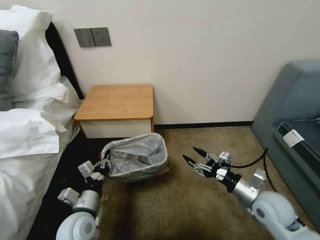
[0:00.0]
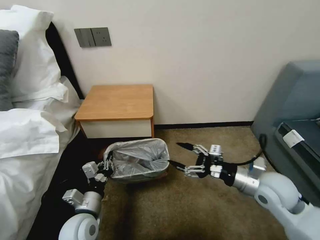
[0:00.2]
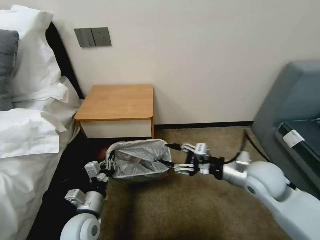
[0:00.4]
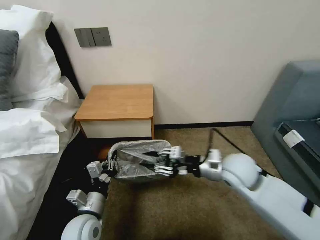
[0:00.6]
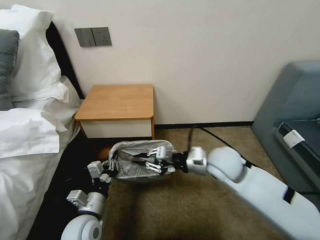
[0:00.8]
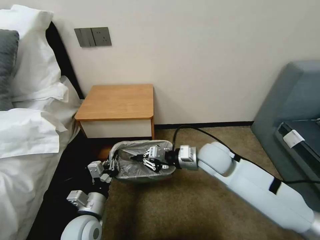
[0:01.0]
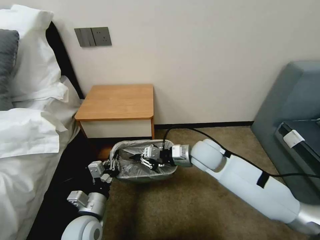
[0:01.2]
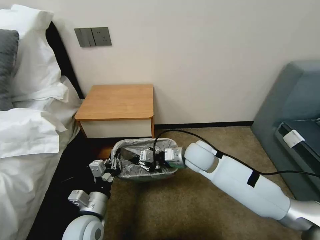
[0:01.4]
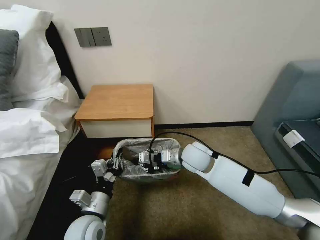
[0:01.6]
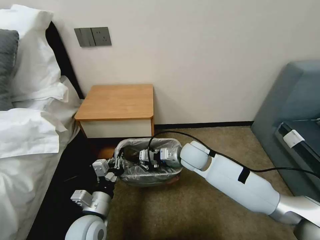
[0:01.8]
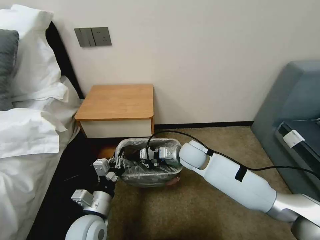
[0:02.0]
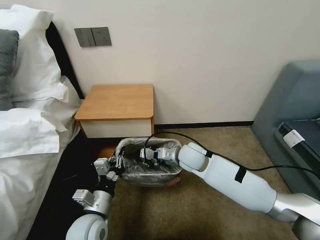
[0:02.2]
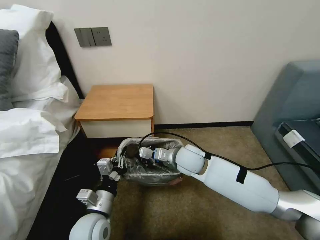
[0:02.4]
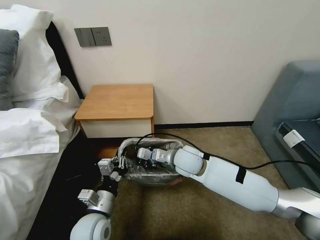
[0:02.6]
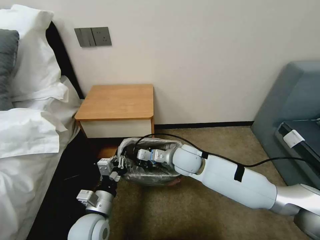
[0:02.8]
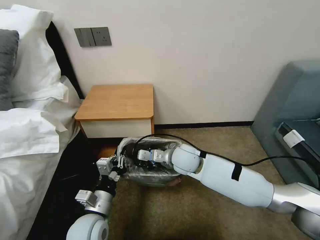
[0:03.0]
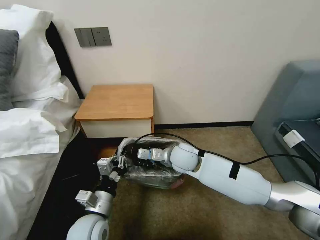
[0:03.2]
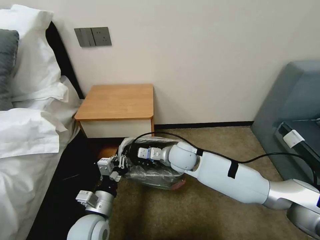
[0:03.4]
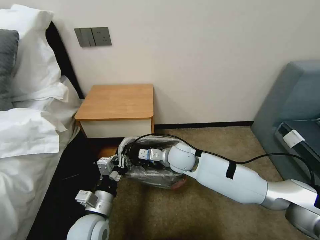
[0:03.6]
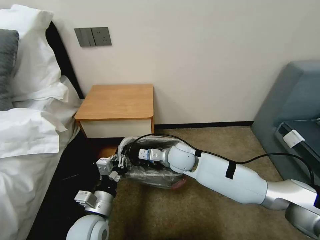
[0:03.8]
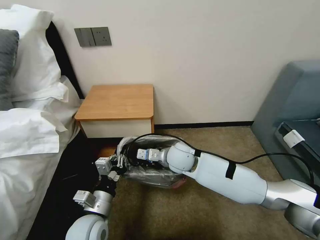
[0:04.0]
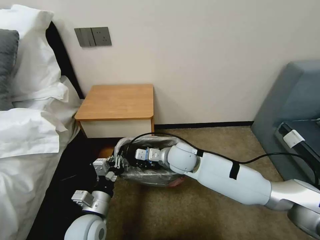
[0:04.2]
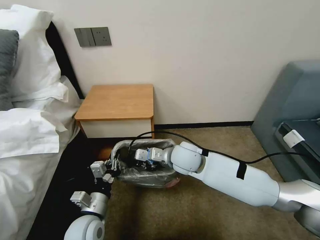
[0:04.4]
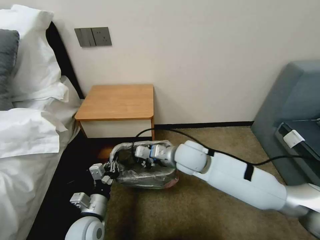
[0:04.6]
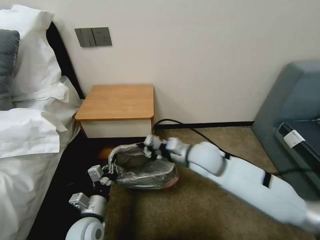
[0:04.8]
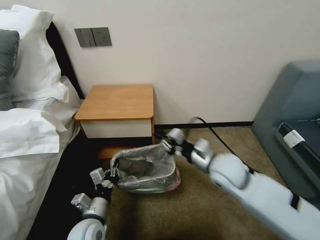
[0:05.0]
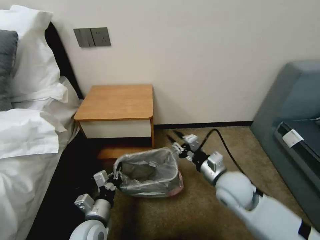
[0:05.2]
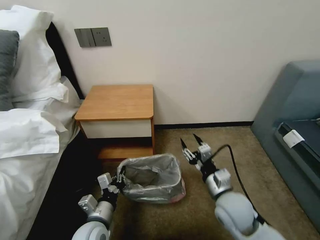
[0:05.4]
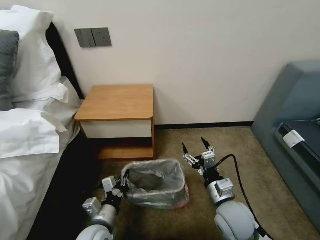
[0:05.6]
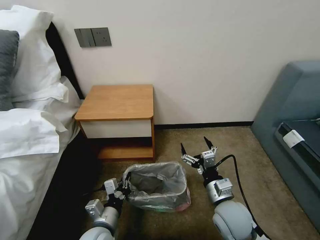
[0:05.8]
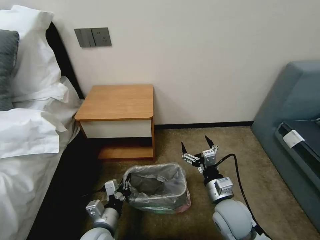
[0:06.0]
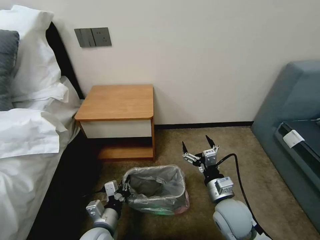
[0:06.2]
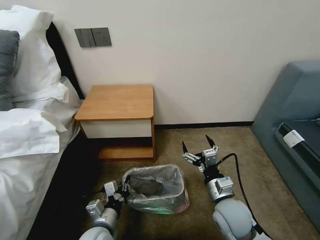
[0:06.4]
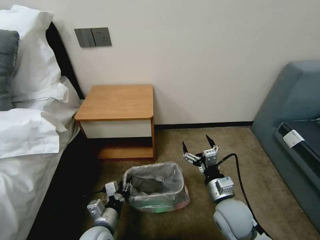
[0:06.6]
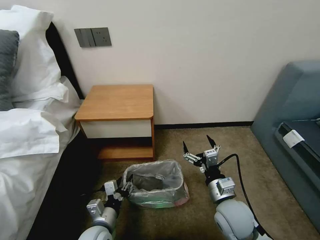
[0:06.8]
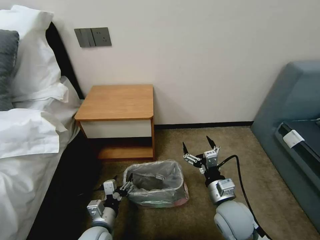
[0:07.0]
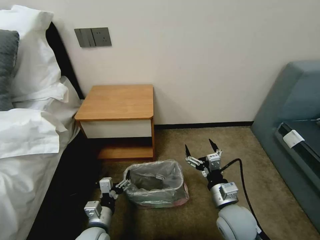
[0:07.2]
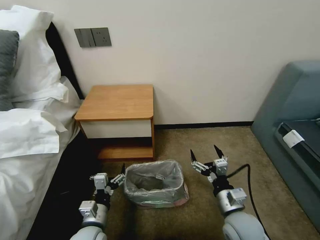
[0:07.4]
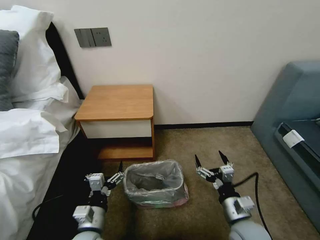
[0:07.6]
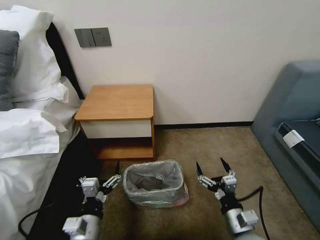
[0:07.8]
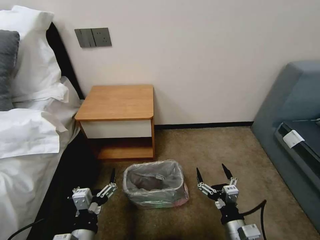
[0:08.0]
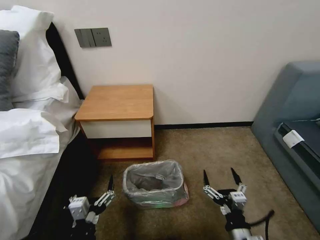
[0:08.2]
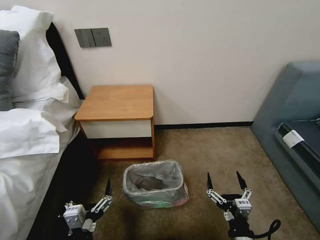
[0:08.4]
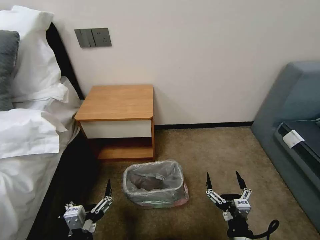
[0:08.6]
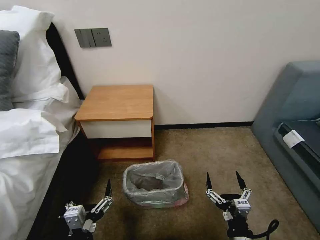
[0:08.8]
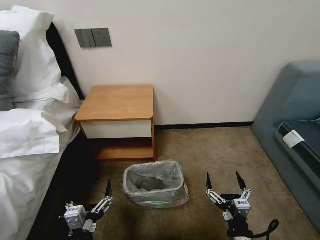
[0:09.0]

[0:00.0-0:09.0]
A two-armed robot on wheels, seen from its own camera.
Task of the whole recording: Pick up the garbage bag from the table and place it over the trash can.
0:00.0 to 0:01.6: The right gripper travels to the left and forward by some 25 cm, and closes.
0:01.6 to 0:03.0: The grippers make only small movements.
0:03.0 to 0:04.4: The grippers stay close to where they were, moving slightly.
0:04.4 to 0:06.0: The right gripper moves backward, to the right and downward, roughly 20 cm, and opens up. The left gripper shifts by approximately 5 cm.
0:06.0 to 0:07.6: The right gripper changes place by approximately 5 cm. The left gripper opens.
0:07.6 to 0:09.0: The grippers both shift backward by approximately 10 cm.

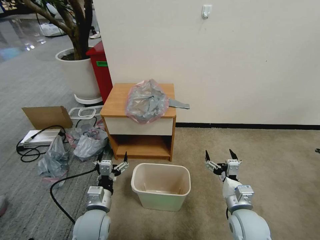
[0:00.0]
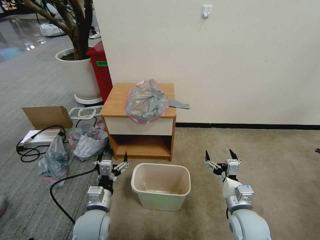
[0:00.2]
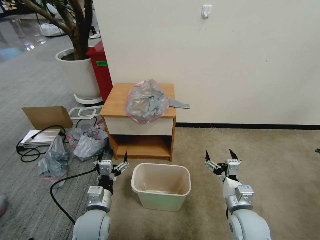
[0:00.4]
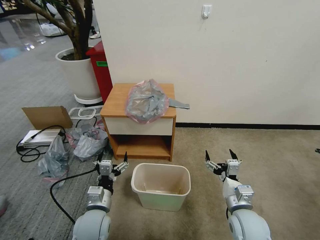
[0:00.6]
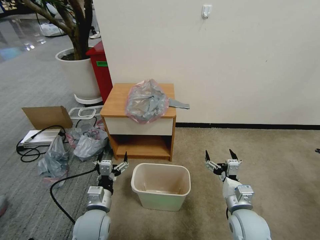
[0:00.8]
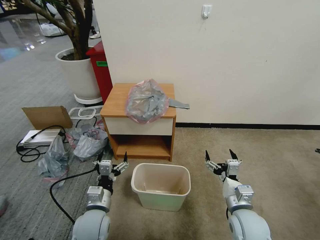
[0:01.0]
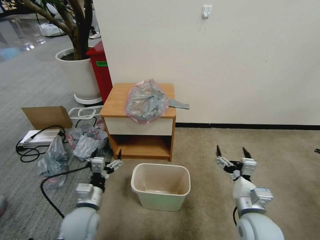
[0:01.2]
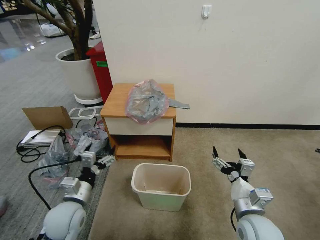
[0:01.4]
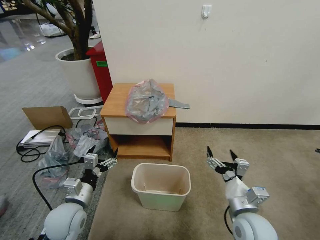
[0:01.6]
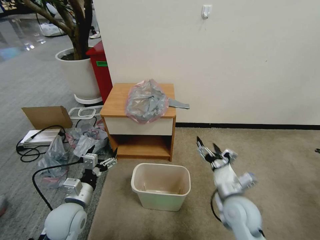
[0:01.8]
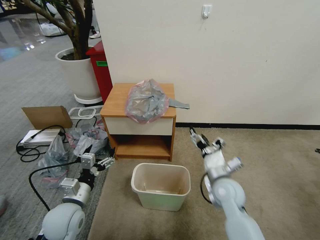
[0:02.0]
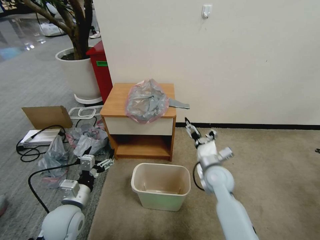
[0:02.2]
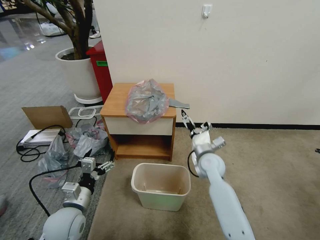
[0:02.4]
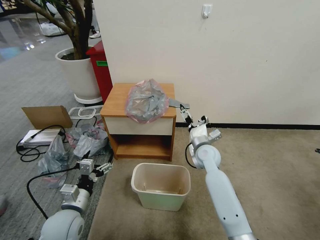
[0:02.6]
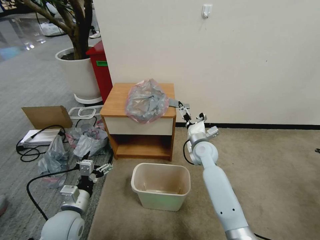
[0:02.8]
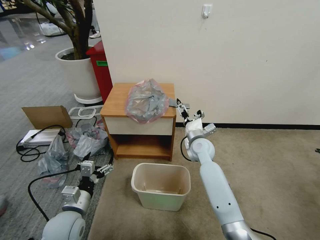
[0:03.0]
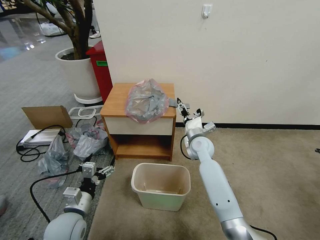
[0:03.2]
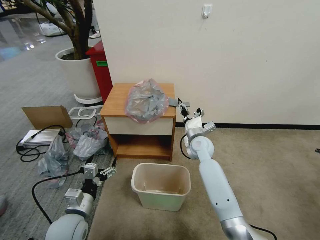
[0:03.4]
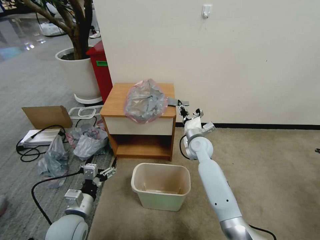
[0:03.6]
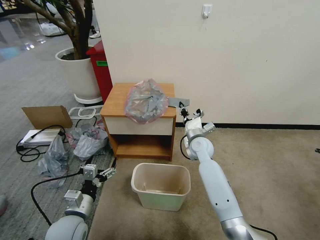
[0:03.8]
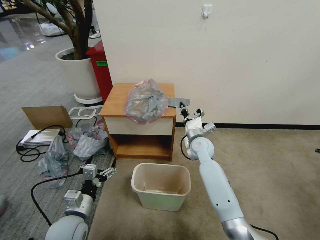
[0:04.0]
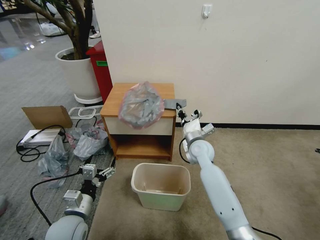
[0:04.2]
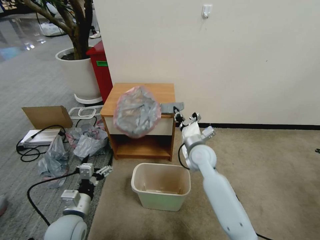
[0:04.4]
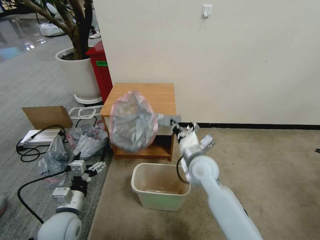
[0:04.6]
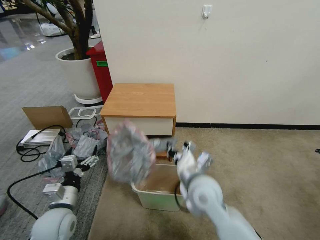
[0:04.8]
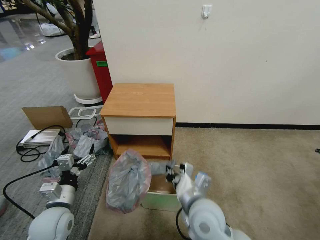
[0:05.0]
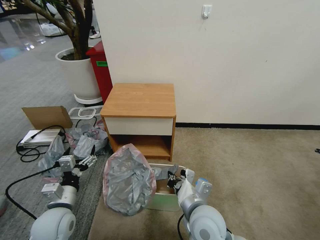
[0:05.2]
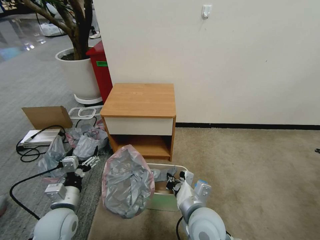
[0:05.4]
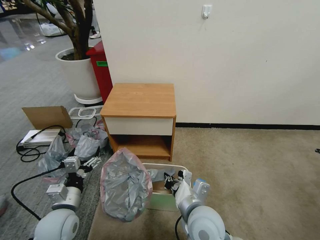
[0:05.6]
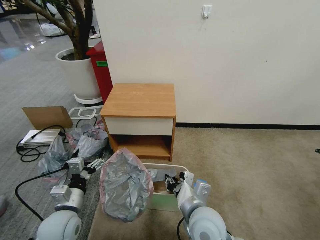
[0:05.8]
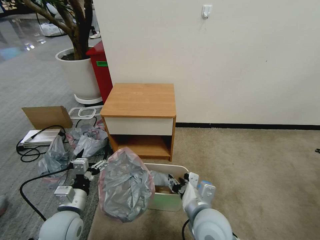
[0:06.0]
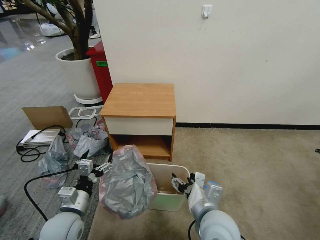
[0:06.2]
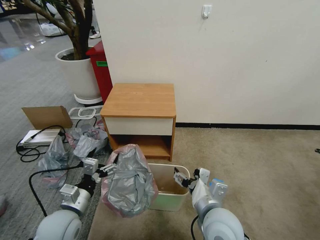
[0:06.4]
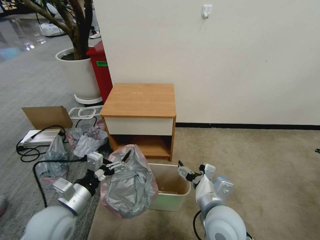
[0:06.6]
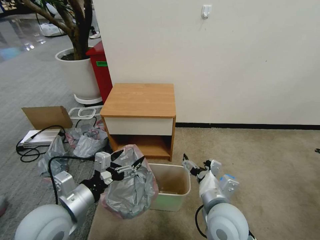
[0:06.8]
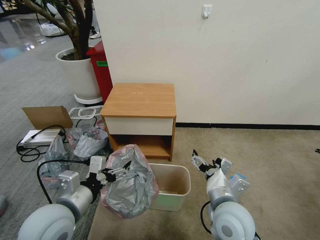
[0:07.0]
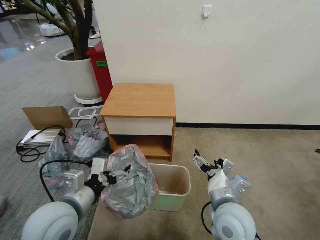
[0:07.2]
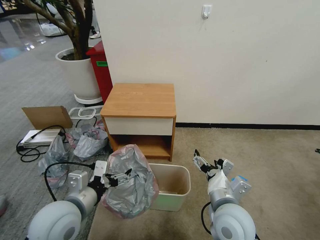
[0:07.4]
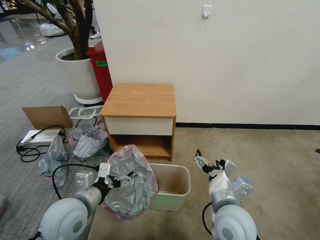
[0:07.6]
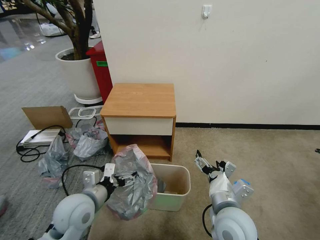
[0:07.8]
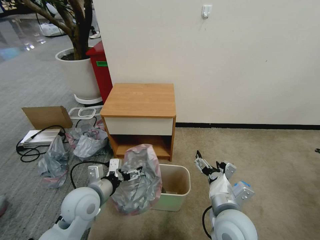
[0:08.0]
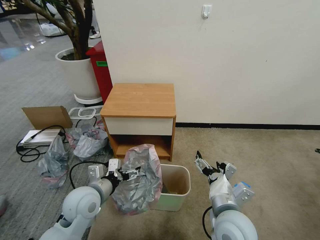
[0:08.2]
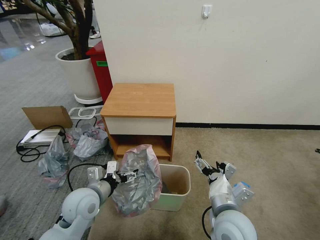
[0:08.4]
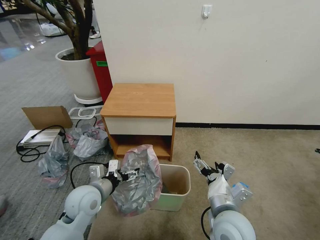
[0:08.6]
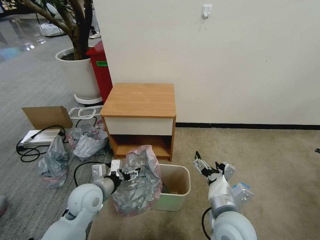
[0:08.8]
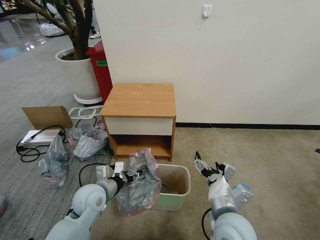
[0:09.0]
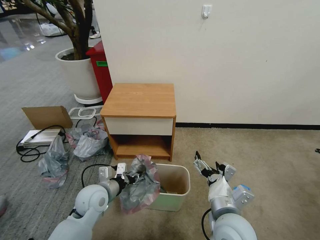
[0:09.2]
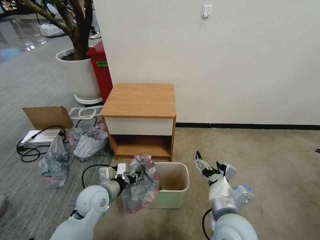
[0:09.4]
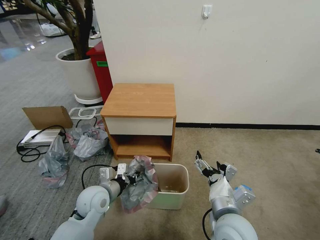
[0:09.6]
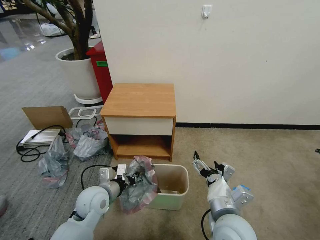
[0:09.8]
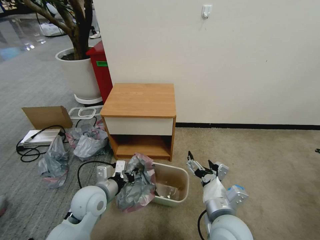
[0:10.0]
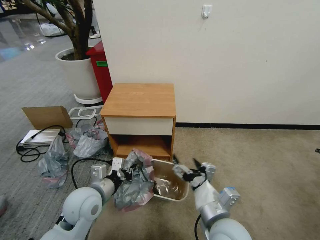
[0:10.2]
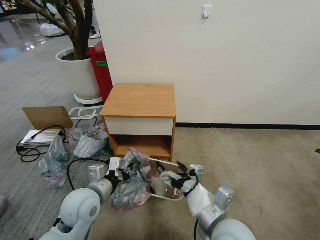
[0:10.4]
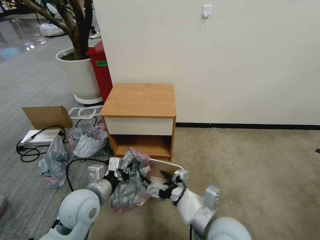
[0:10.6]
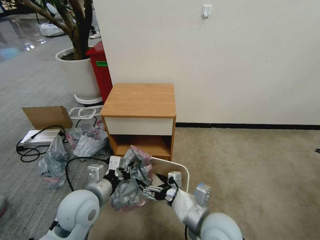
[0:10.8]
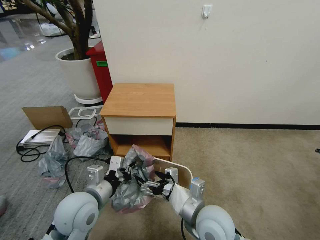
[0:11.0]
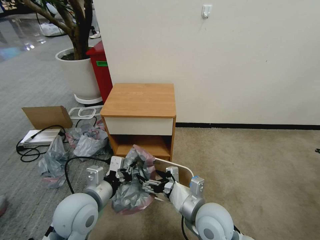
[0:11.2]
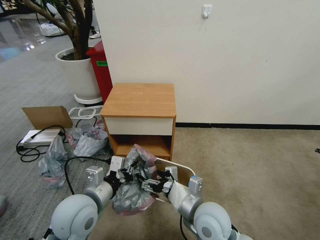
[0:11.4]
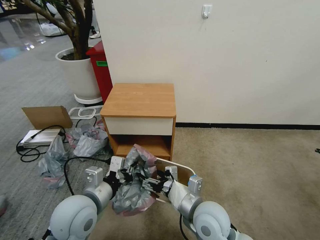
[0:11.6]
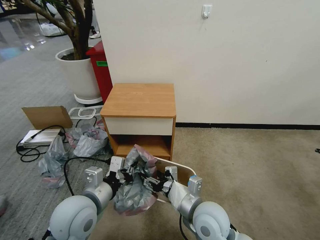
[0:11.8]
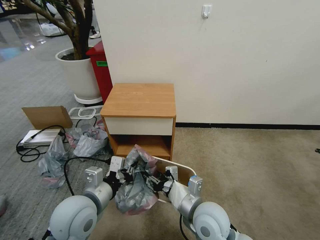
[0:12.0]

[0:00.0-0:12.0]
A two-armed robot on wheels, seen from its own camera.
Task of the whole recording: Pick up the garbage bag from the table and place it over the trash can.
0:01.6 to 0:03.0: The right gripper shifts about 25 cm forward.
0:03.0 to 0:04.4: The right gripper shifts approximately 5 cm backward, and closes.
0:04.4 to 0:06.0: The right gripper is displaced backward by some 20 cm, and opens up.
0:06.0 to 0:07.6: The right gripper travels to the right by roughly 5 cm, and opens its fingers. The left gripper travels upward by about 10 cm.
0:07.6 to 0:09.0: The left gripper is displaced downward and forward by some 10 cm, and closes.
0:09.0 to 0:10.4: The left gripper is displaced upward by approximately 5 cm, and closes up.
0:10.4 to 0:12.0: The right gripper travels forward by approximately 5 cm, and closes up. Meanwhile the left gripper changes place by some 5 cm.

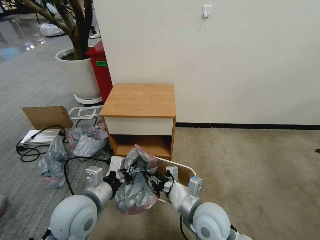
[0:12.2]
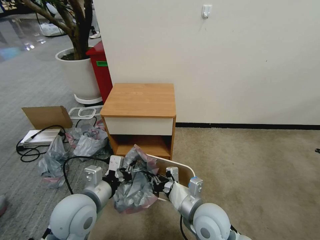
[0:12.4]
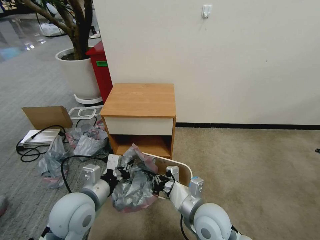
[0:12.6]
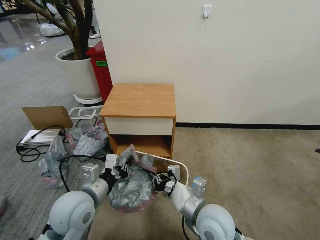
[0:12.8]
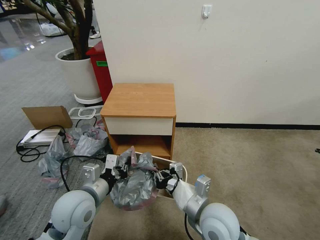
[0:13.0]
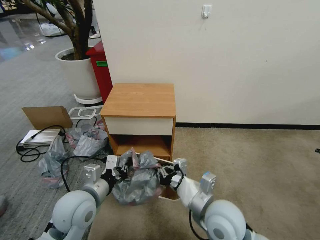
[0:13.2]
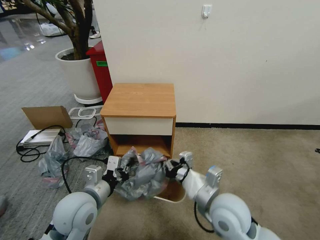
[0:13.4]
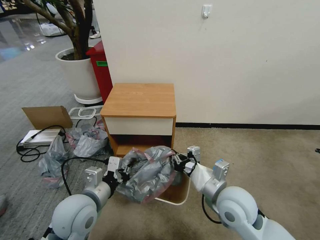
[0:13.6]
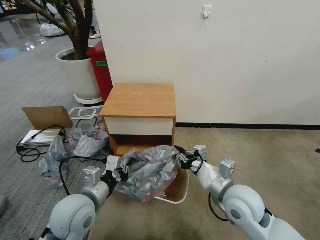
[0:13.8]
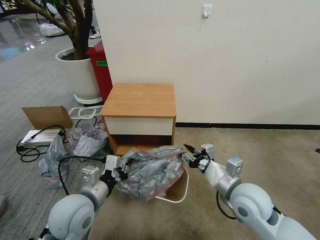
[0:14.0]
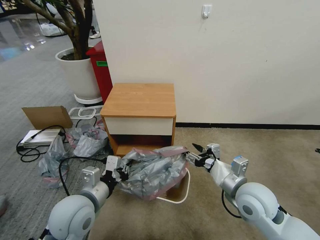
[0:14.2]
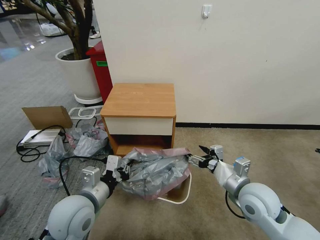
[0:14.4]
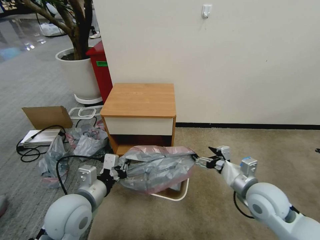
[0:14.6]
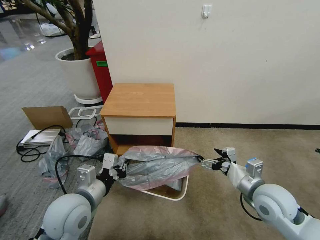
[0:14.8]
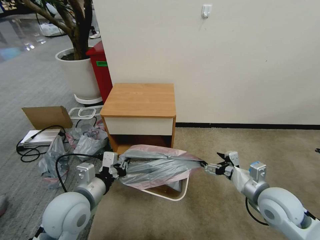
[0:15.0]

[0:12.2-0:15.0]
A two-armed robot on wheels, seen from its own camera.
Task of the whole recording: Pick up the garbage bag from the table and place it over the trash can.
0:12.2 to 0:13.6: The right gripper goes some 5 cm to the right.
0:13.6 to 0:15.0: The right gripper moves to the right, approximately 15 cm, and opens.
